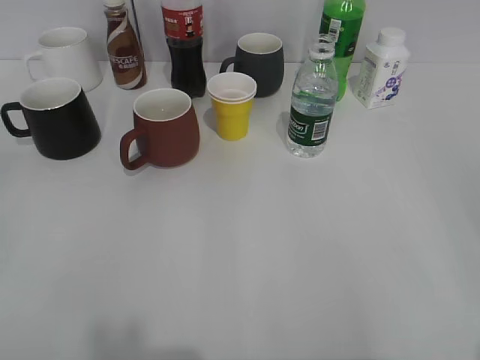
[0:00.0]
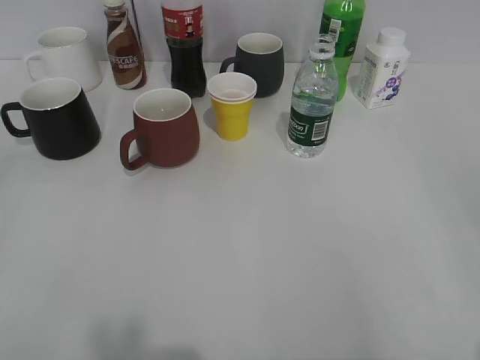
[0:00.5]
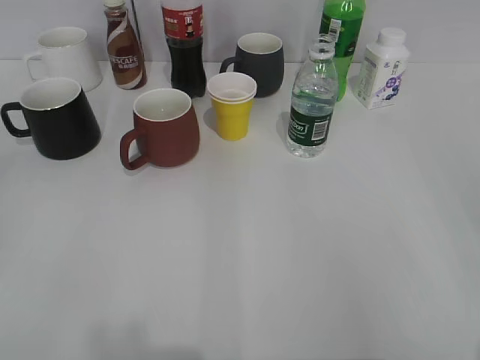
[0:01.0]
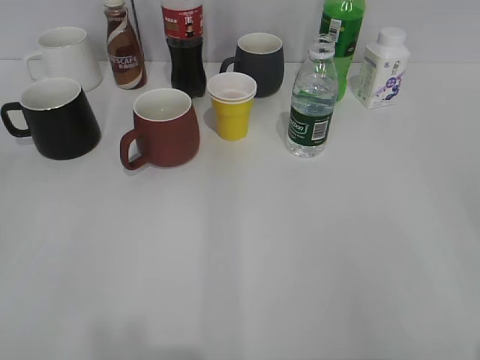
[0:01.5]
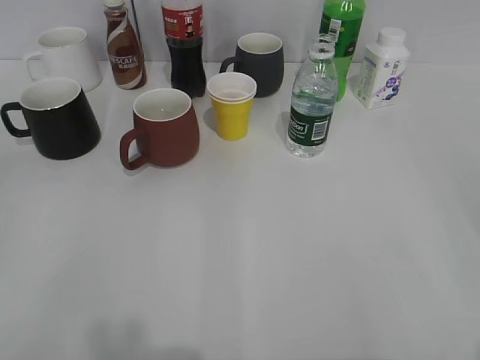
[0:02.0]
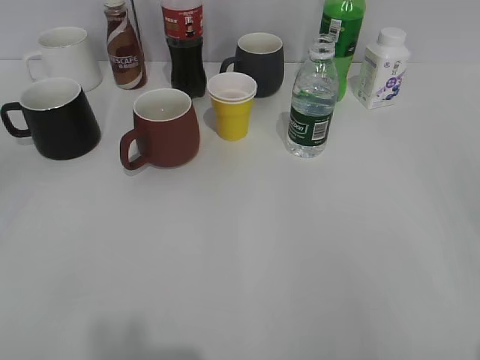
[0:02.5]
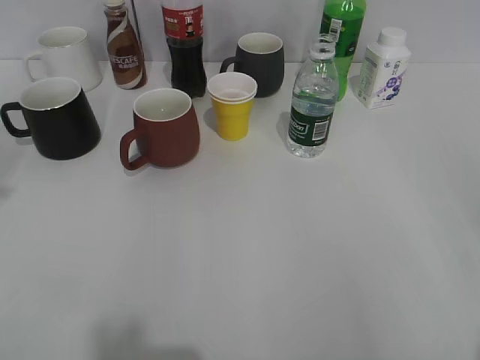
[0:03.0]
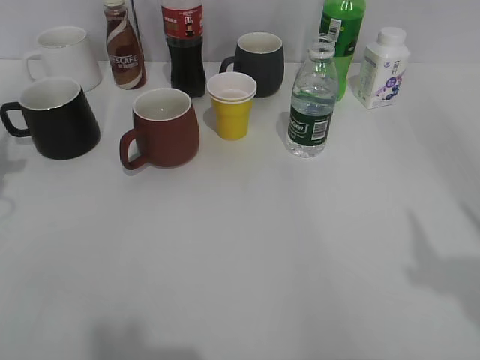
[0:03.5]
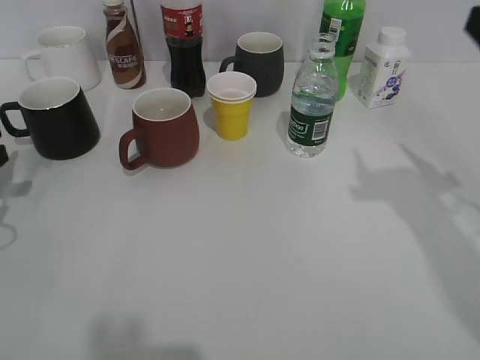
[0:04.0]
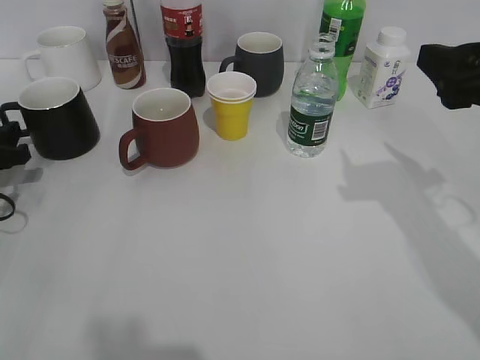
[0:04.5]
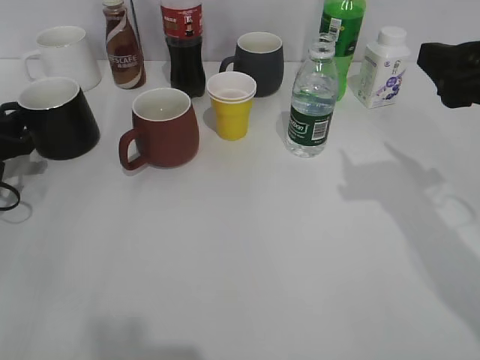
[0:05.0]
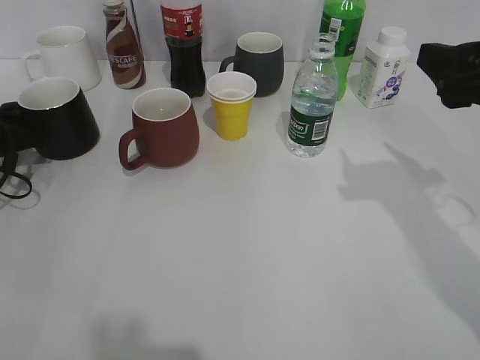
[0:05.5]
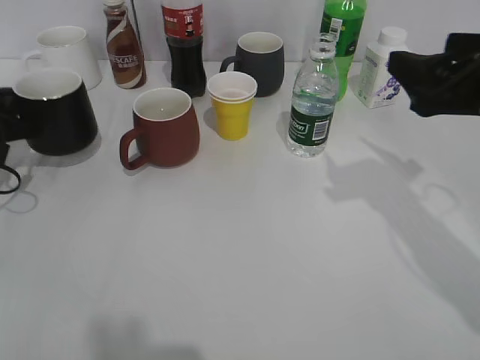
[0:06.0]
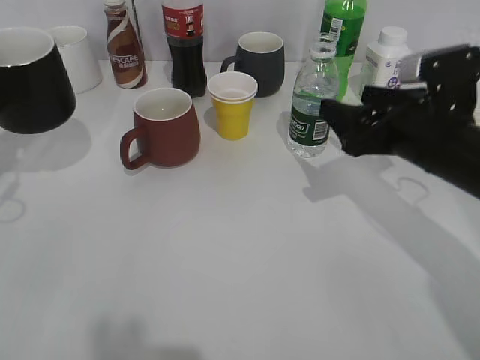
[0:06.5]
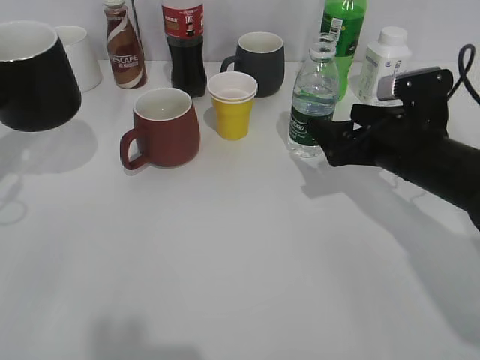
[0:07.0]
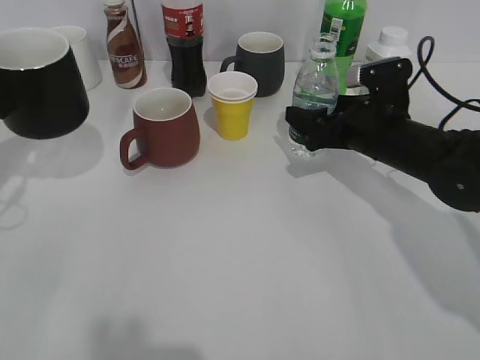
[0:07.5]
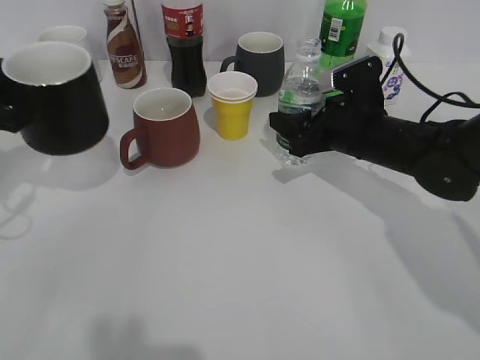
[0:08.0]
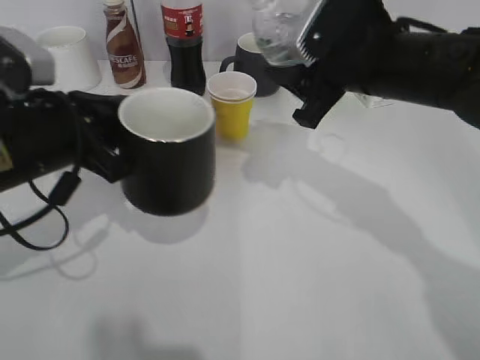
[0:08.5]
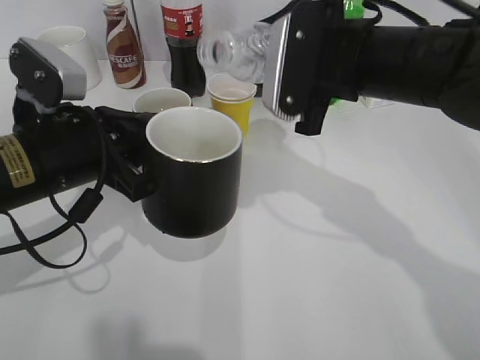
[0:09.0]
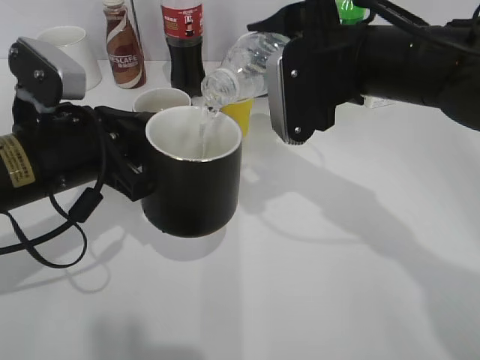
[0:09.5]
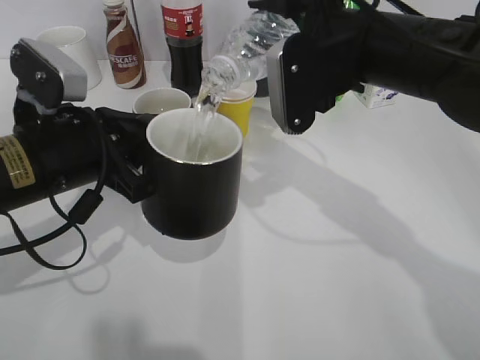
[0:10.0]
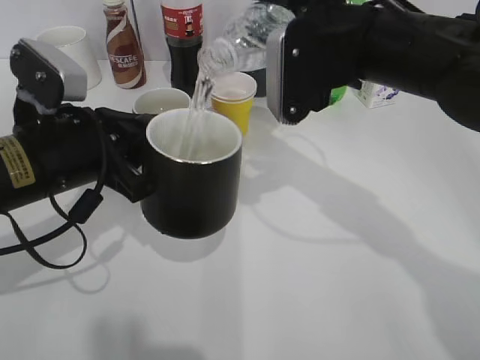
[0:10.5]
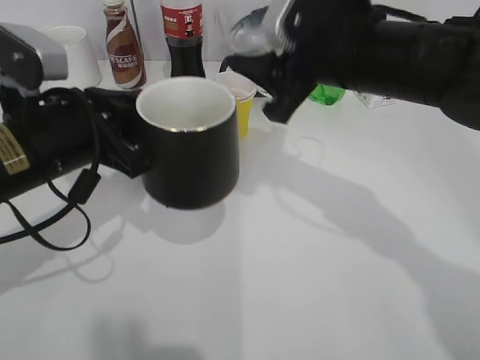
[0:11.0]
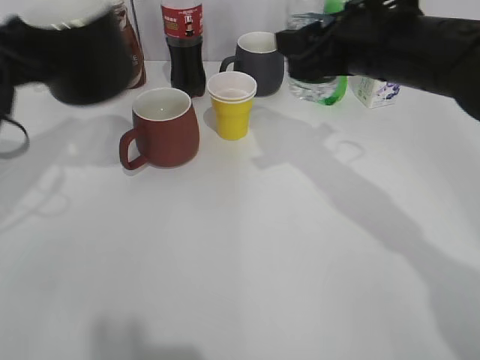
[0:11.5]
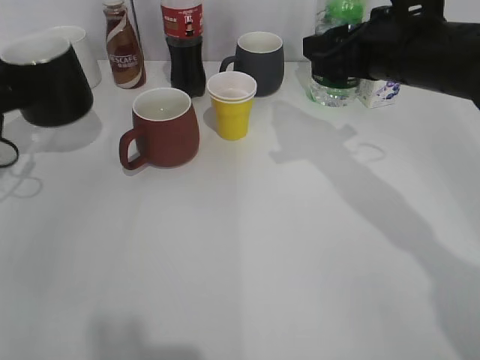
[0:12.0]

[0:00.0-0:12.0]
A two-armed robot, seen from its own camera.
Step, 0:02.0 to 0:05.5: Grasp the black cup with left gripper.
Step, 0:06.0 to 0:06.5: Lift the black cup with left gripper.
Step, 0:07.0 to 0:07.5: Grasp the bottle with water with right gripper.
Step, 0:08.0 to 0:10.5: Pour the water from bottle to cup with right gripper.
0:02.0 to 0:04.0: The left gripper heads forward and downward, covering approximately 30 cm. Meanwhile the right gripper is displaced forward by some 20 cm.
0:04.0 to 0:06.0: The right gripper ends up some 5 cm from where it was. The left gripper moves forward, approximately 5 cm, and closes.
0:06.0 to 0:08.0: The left gripper heads upward and backward, covering about 10 cm. The right gripper heads downward, forward and to the left, covering approximately 20 cm, and closes up.
0:08.0 to 0:10.0: The left gripper heads to the right, covering about 15 cm. Meanwhile the right gripper shifts roughly 15 cm upward.
0:10.0 to 0:12.0: The left gripper moves to the left and forward, roughly 20 cm. Meanwhile the right gripper shifts roughly 5 cm to the right.

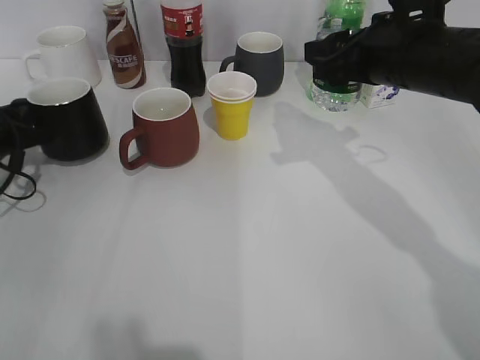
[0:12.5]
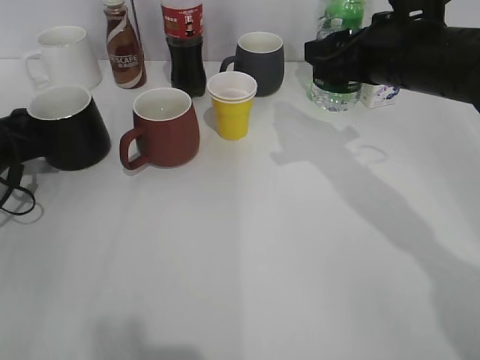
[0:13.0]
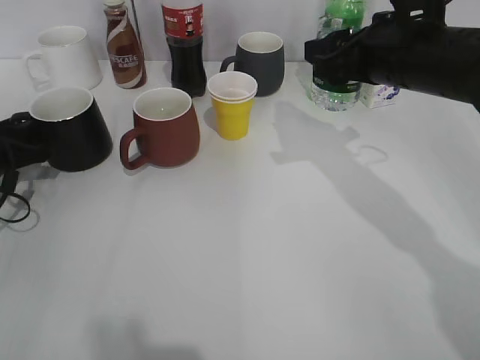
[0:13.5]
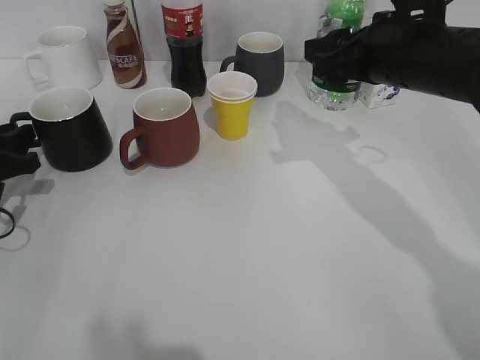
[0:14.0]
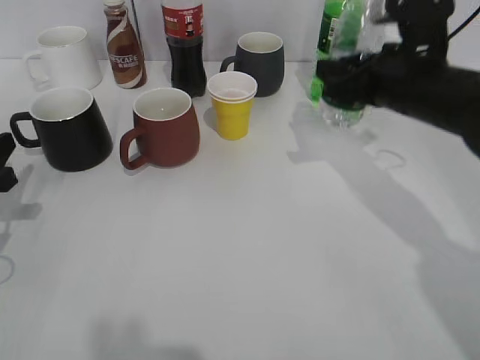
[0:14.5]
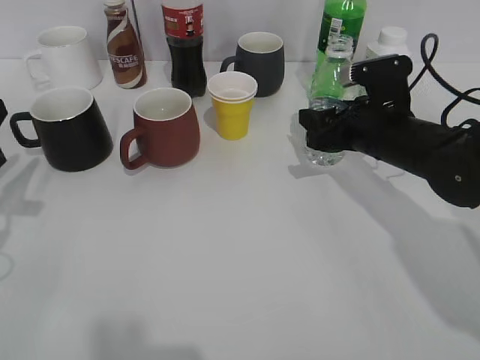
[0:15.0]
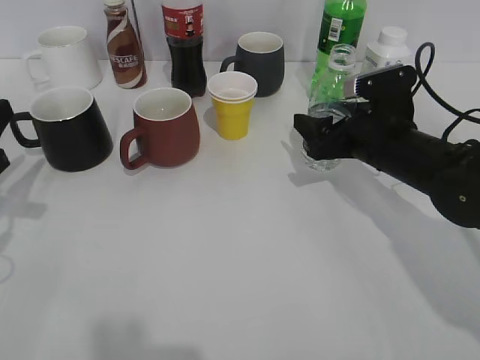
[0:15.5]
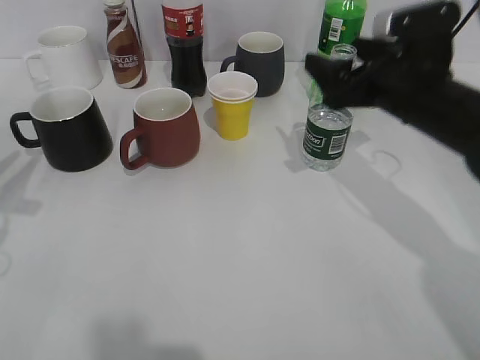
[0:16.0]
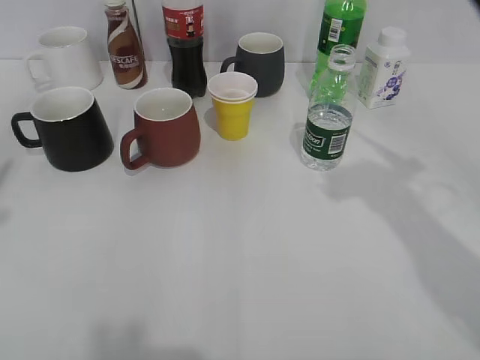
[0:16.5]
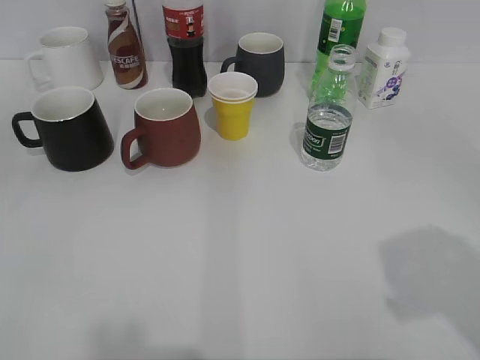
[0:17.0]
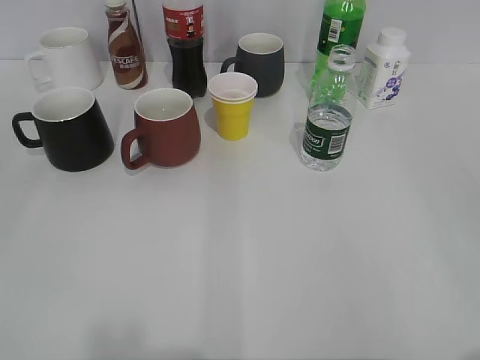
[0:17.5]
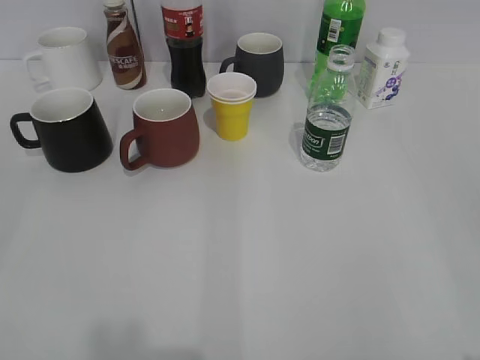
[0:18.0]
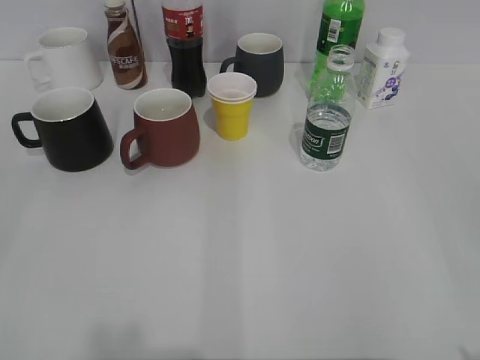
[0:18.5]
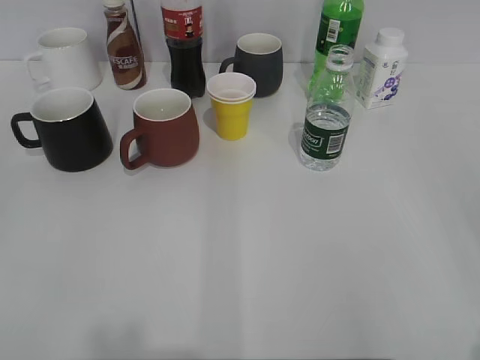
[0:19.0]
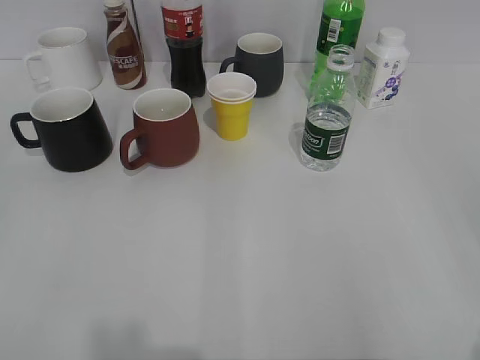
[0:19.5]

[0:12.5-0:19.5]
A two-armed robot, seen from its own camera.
Step, 0:13.5 to 0:15.5: Place the water bottle on the table with right gripper.
0:12.5 to 0:14.5: The left gripper goes approximately 10 cm backward, and opens up.
0:14.5 to 0:16.0: The left gripper heads upward, covering approximately 5 cm. Meanwhile the right gripper moves roughly 10 cm downward and comes back, and opens up.
0:16.0 to 0:17.5: The left gripper moves backward and upward, about 25 cm, and opens its fingers; the right gripper travels backward by about 35 cm.
0:17.5 to 0:19.5: The grippers stay close to where they were, moving slightly.

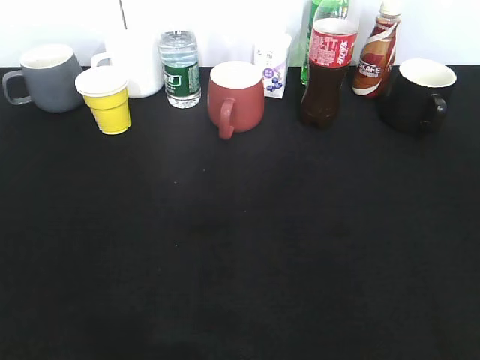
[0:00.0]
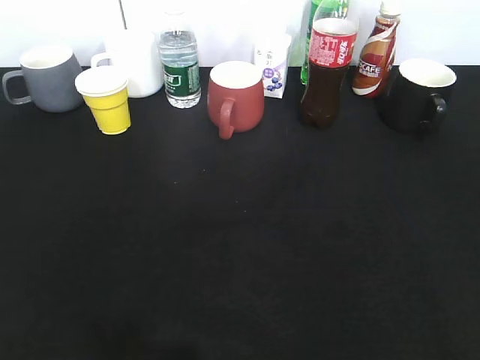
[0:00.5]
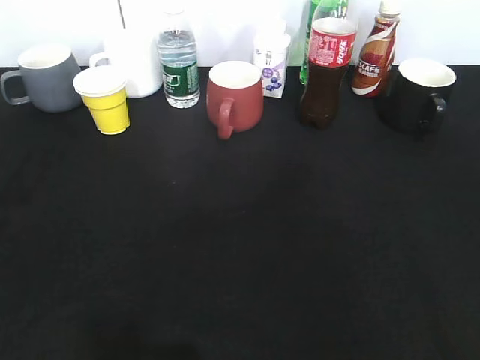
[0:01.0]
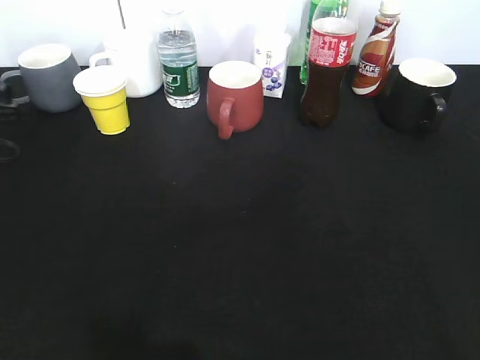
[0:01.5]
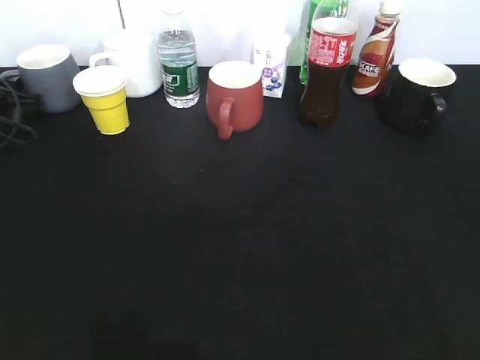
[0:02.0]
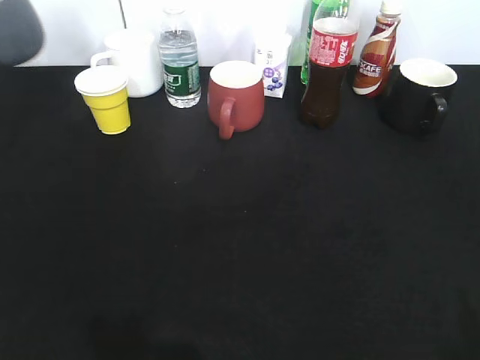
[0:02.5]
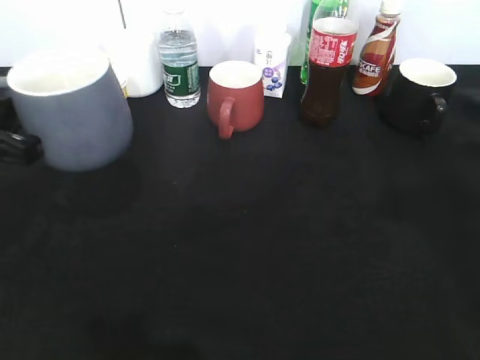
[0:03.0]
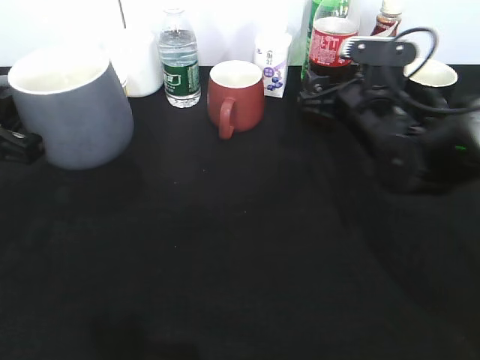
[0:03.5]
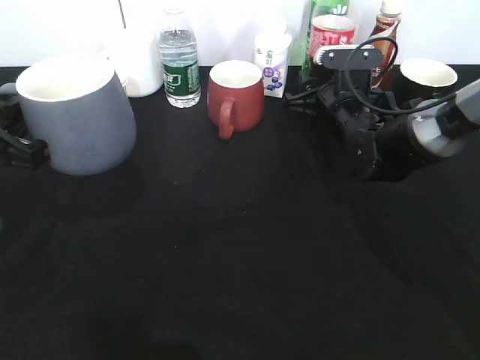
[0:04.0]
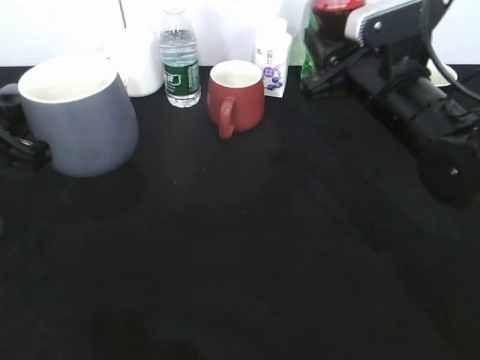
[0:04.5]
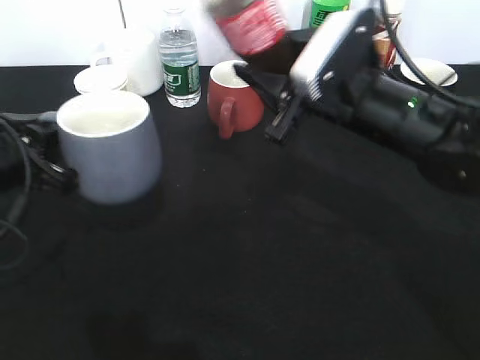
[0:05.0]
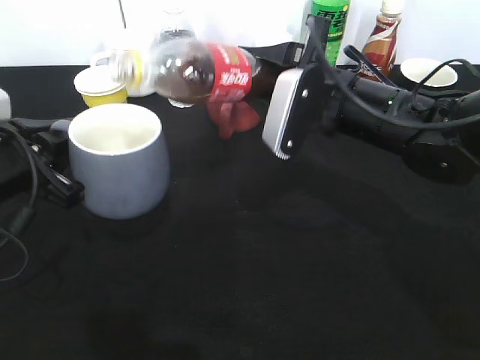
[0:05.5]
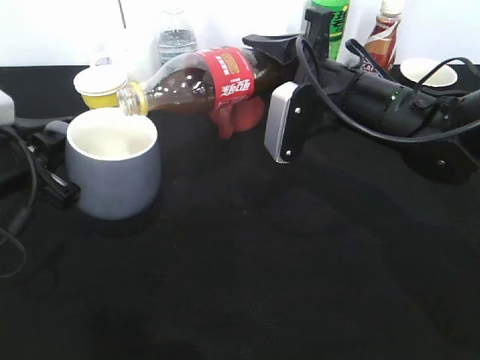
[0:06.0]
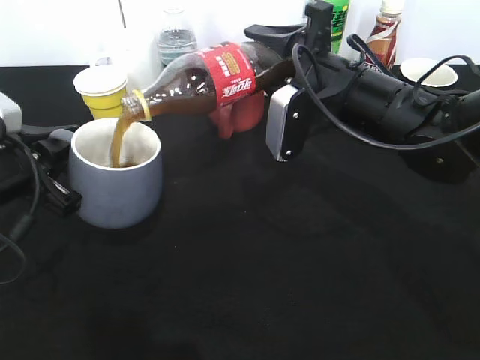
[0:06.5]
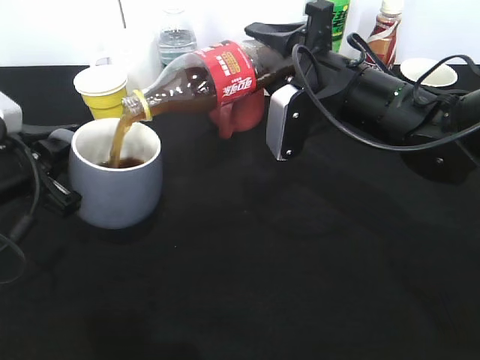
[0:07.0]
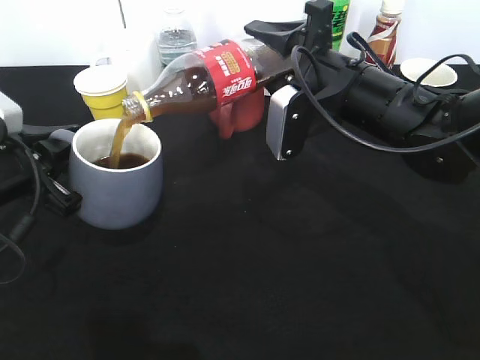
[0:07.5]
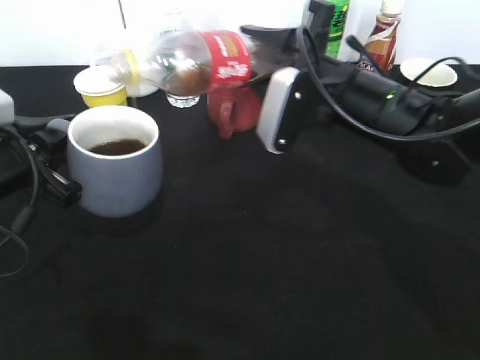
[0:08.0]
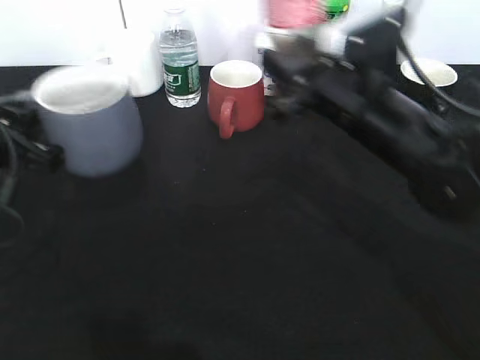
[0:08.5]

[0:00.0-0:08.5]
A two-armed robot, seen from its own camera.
Step, 0:00.0 to 0:02.0: Grasp the grey cup with left gripper.
Step, 0:03.0 to 0:03.5: Grasp the bottle with cola with right gripper.
Step, 0:04.5 to 0:07.0: Pour the cola from bottle to cup with right gripper.
0:00.0 to 0:02.0: The left gripper heads forward, covering about 40 cm, and closes up.
0:02.0 to 0:04.0: The right gripper is displaced forward and downward by about 50 cm, and closes; the left gripper goes about 25 cm backward, to the right and upward.
0:04.0 to 0:06.5: The right gripper is displaced upward and backward by some 15 cm.
